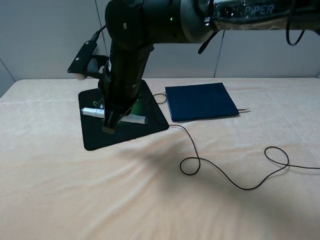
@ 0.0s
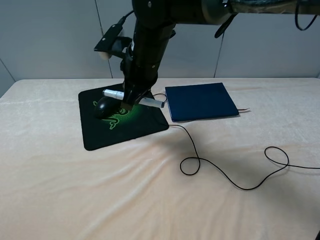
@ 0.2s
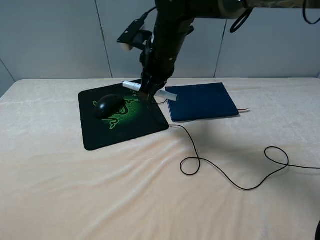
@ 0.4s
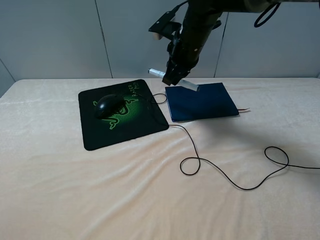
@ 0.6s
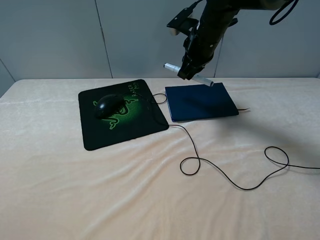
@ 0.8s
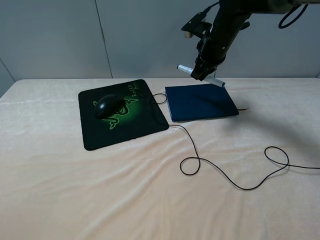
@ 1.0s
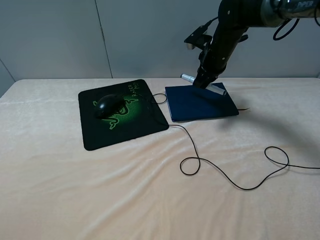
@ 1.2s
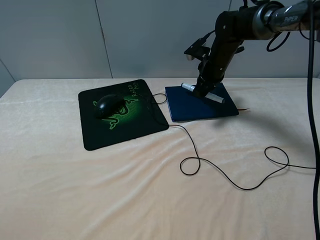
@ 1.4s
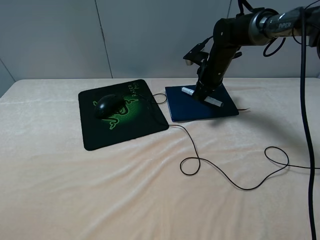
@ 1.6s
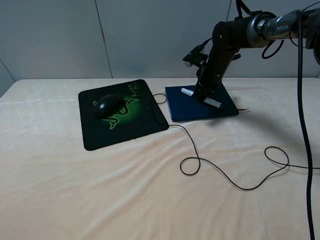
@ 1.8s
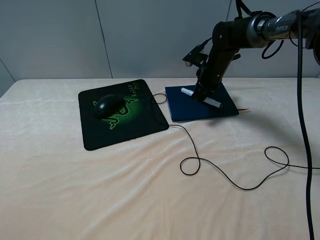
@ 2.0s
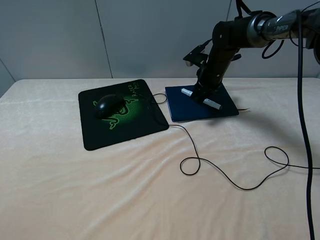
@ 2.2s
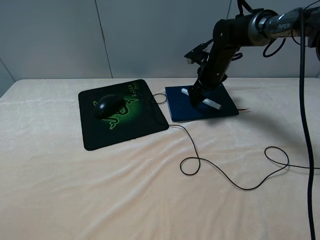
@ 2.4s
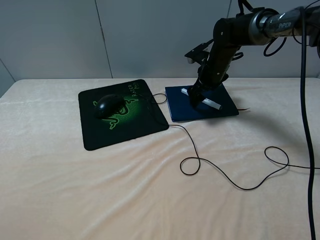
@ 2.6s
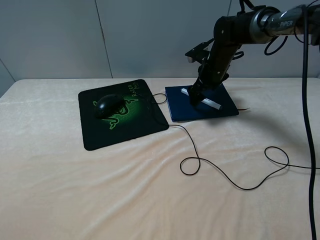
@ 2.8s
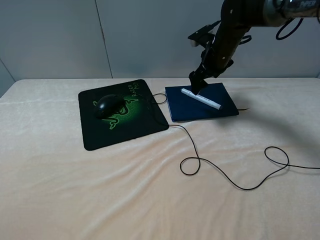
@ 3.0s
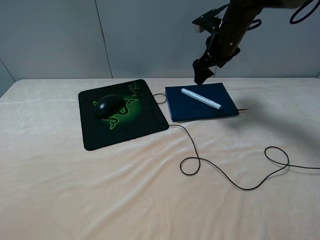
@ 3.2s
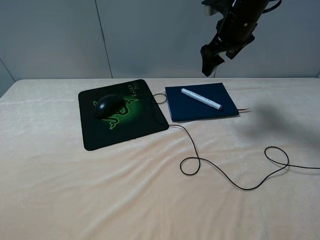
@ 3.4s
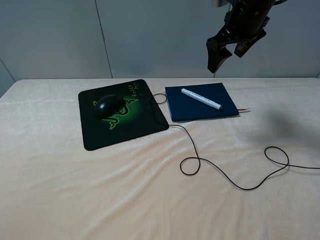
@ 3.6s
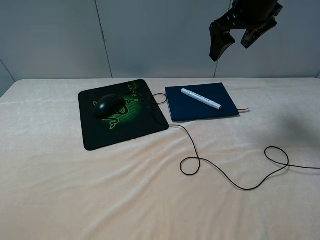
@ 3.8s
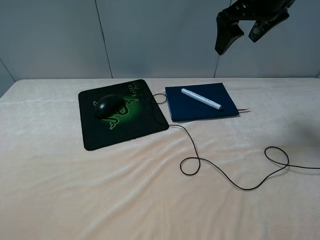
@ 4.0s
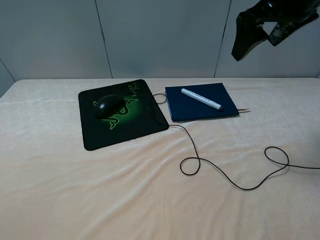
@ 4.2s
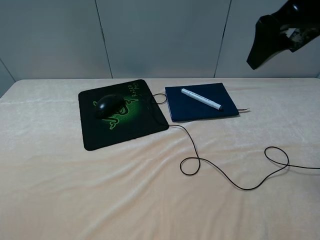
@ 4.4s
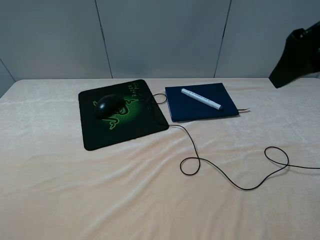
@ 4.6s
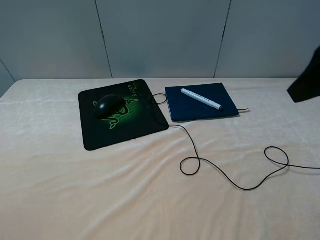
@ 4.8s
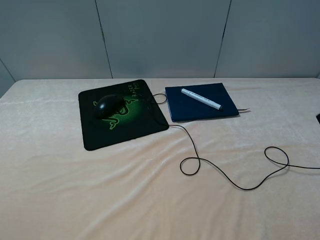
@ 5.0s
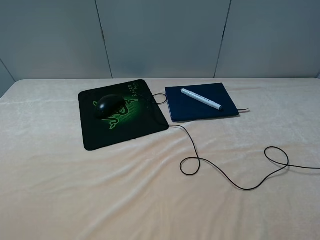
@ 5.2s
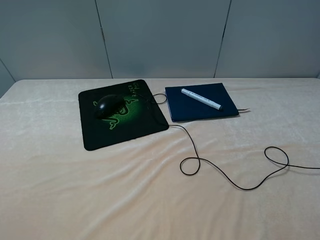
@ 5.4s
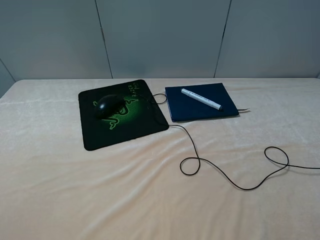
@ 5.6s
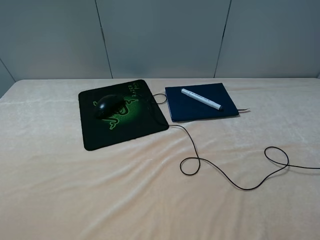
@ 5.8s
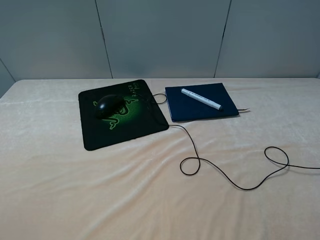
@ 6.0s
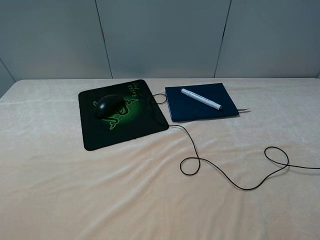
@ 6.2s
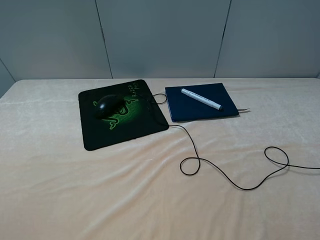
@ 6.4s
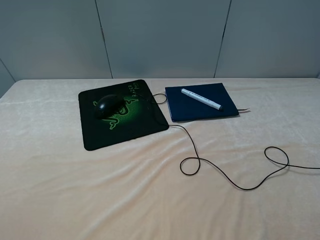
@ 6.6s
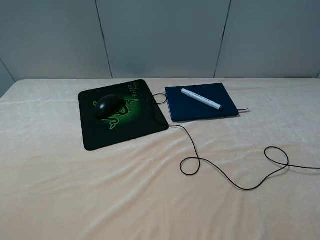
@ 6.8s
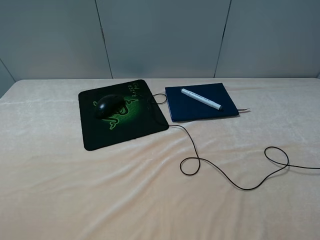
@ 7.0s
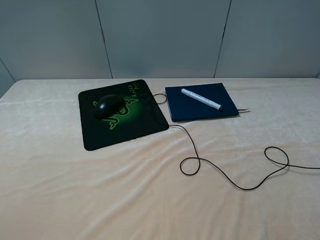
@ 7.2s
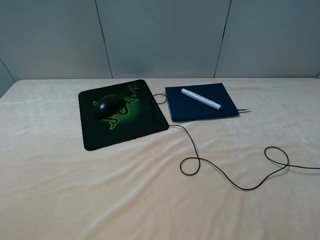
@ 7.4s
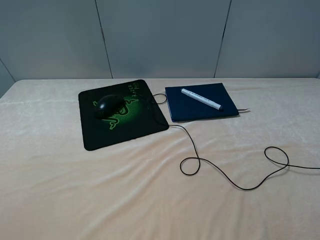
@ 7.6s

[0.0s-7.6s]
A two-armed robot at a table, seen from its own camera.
Step, 0.0s to 2.8s: Place the marker on the notebook with the right gripper.
0.0s to 1.6s: The right gripper moves to the right and forward, about 30 cm.
1.6s to 3.0s: The right gripper opens up.
3.0s to 4.6s: The right gripper heads backward and upward, covering approximately 30 cm.
4.6s to 6.0s: The right gripper heads backward, covering approximately 25 cm.

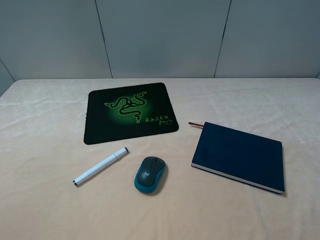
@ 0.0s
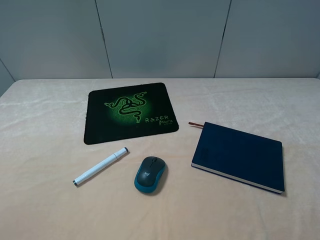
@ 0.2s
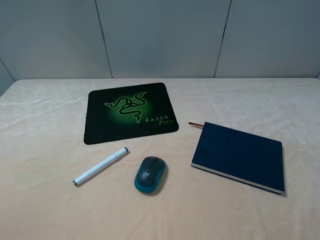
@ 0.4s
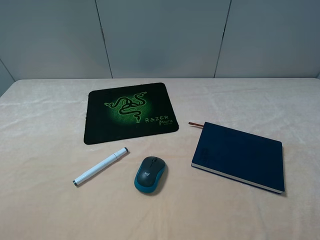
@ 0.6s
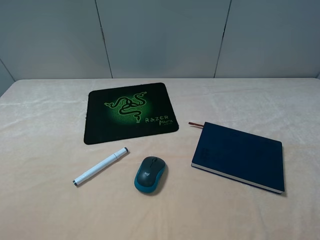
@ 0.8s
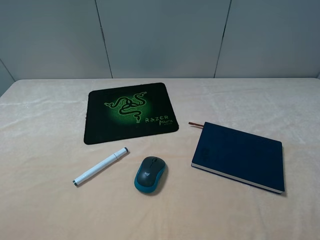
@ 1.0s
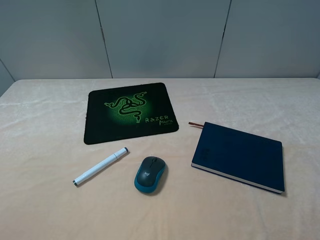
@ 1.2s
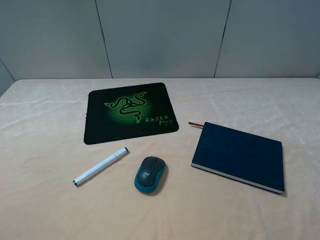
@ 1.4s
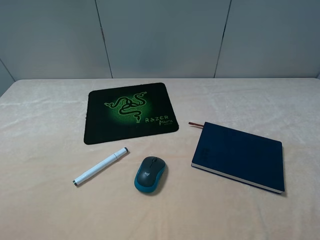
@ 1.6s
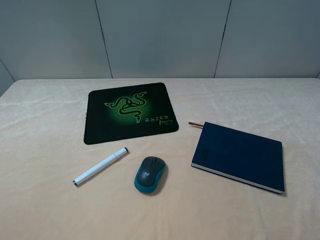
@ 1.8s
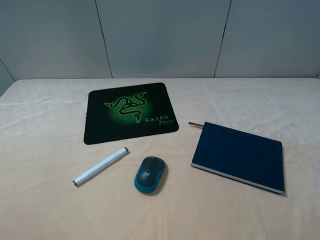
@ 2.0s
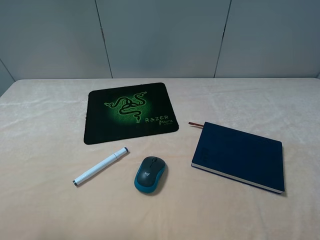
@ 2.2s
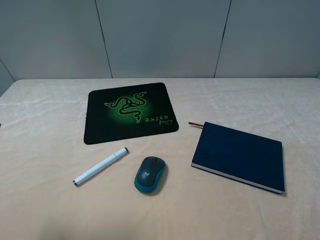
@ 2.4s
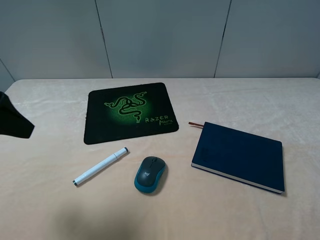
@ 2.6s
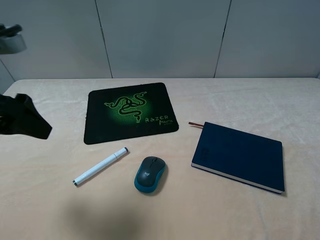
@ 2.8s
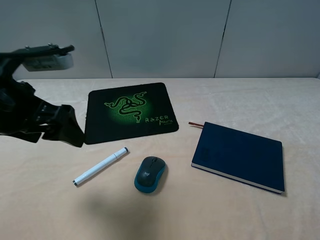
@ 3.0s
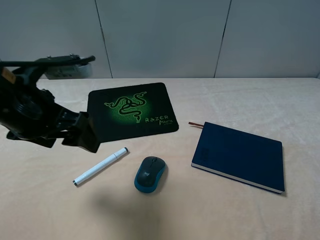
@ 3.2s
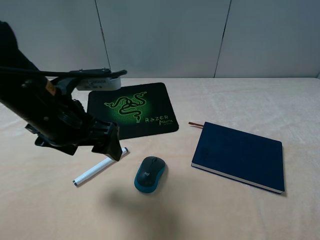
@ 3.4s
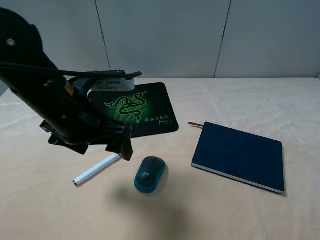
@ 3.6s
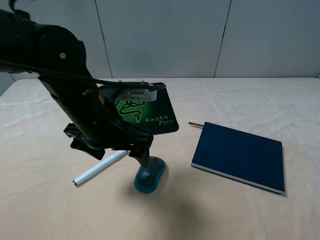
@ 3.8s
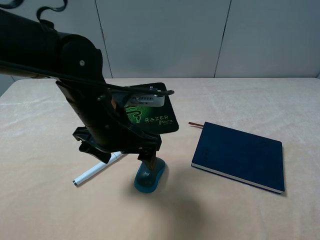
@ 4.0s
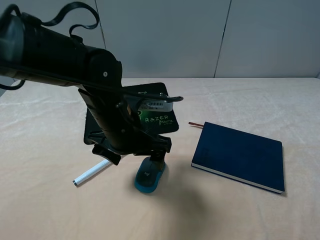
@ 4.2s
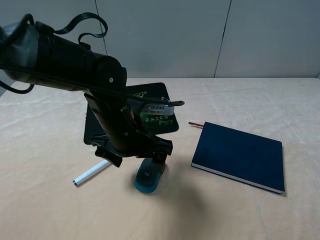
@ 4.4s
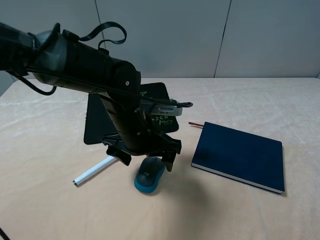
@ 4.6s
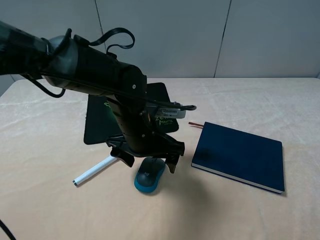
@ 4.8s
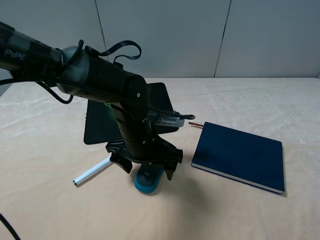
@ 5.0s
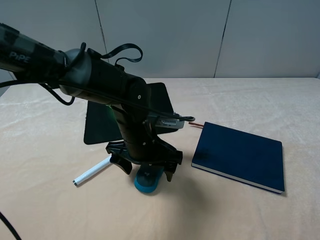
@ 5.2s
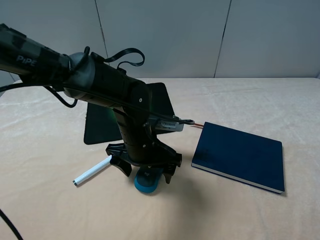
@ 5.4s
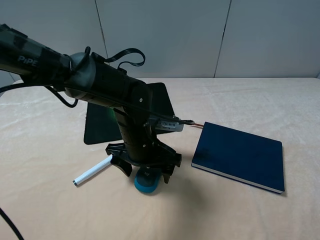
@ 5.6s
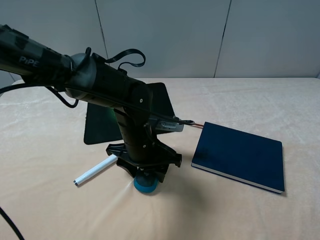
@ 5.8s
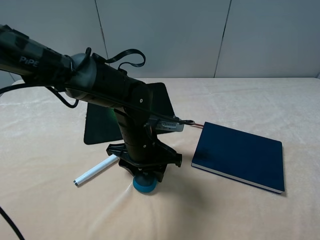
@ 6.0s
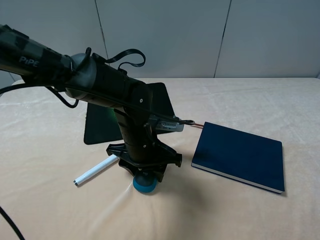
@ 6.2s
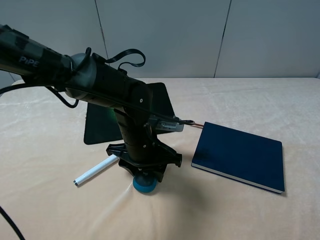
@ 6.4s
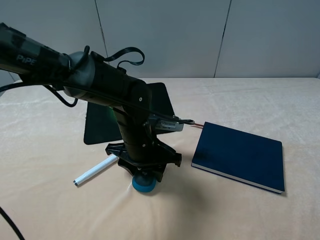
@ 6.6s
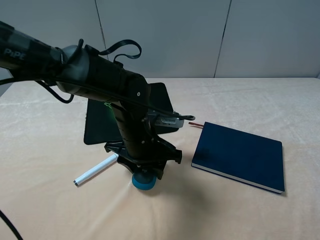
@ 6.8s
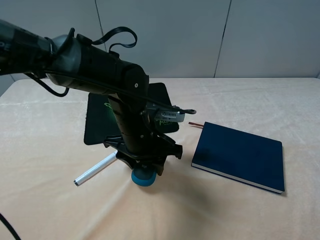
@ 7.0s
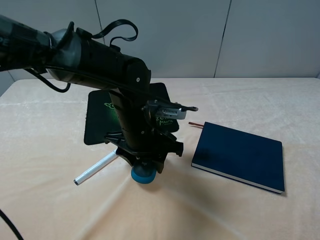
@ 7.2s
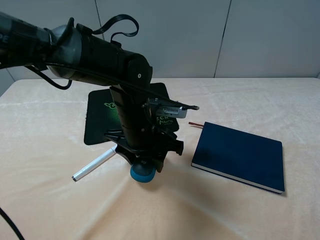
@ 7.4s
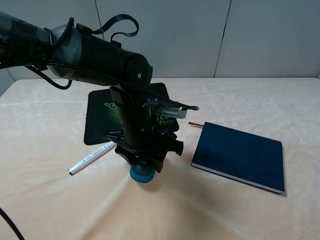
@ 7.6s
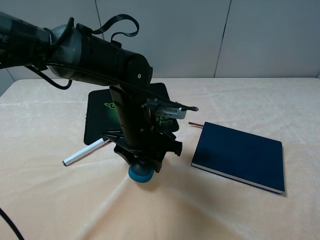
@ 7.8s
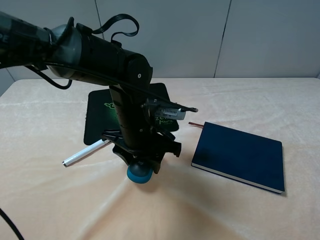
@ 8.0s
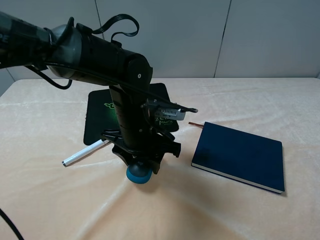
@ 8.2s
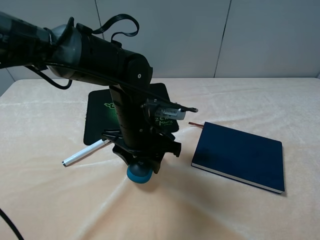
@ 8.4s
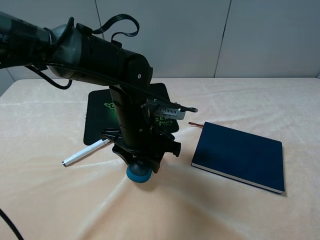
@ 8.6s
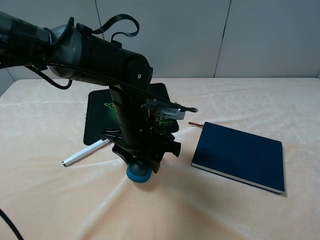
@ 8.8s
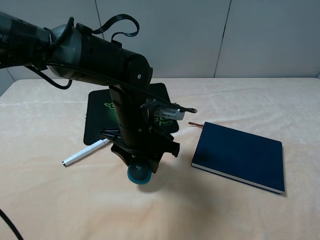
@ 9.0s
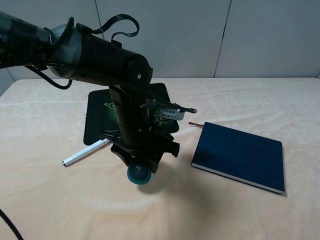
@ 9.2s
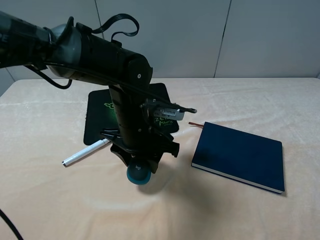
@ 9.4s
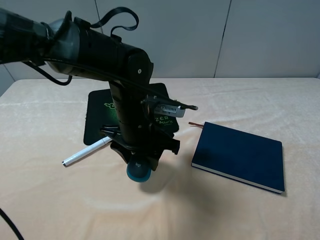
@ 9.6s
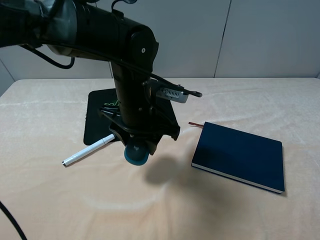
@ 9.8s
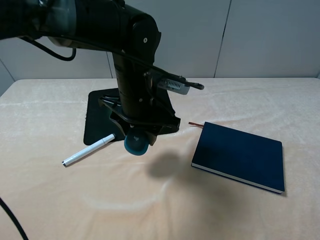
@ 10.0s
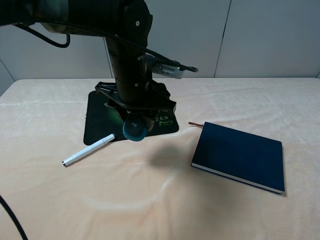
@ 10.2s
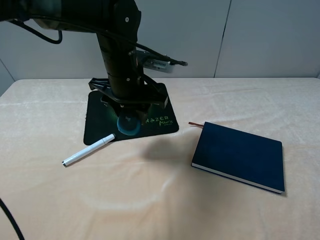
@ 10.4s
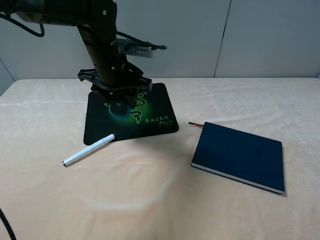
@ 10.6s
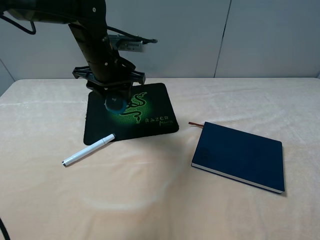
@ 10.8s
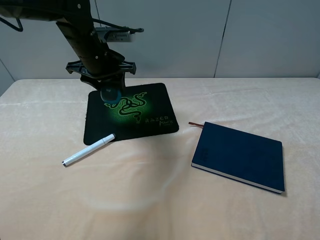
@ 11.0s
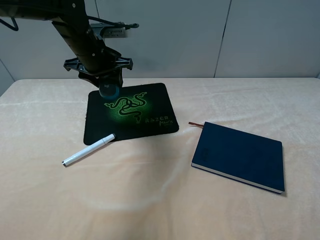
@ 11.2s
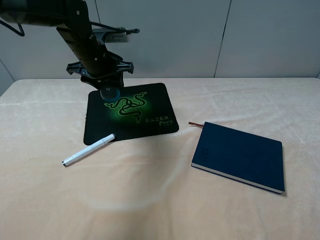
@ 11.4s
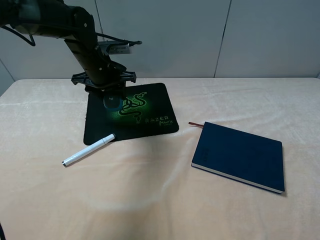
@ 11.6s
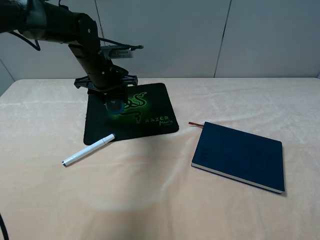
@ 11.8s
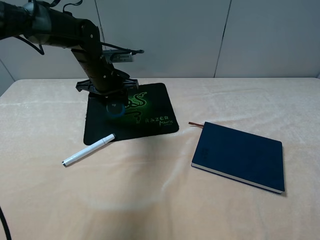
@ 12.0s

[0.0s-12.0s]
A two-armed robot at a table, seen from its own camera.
Step, 0.0s to 6.0s: Grasp the mouse with the left gripper.
1.6s to 3.0s: The left gripper moves forward and to the right, approximately 20 cm.
3.0s to 4.4s: The left gripper travels to the right and downward by approximately 20 cm.
4.4s to 6.0s: The left gripper shifts by about 5 cm, and closes up.
6.0s to 7.6s: The grippers move only a little.
7.6s to 9.0s: The two grippers keep their place.
9.0s to 10.4s: The left gripper moves forward and upward, roughly 10 cm.
10.4s to 12.0s: The left gripper goes some 15 cm forward, to the left and downward.

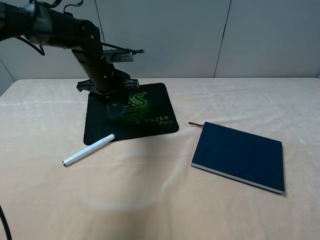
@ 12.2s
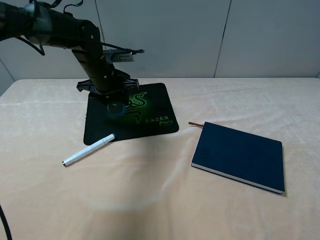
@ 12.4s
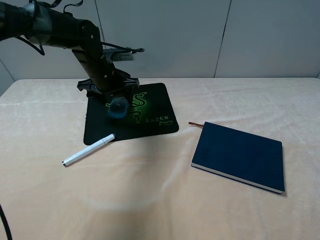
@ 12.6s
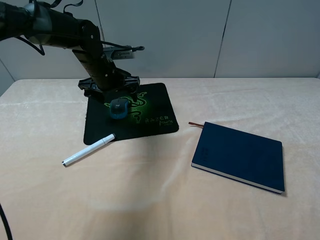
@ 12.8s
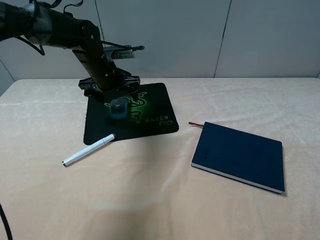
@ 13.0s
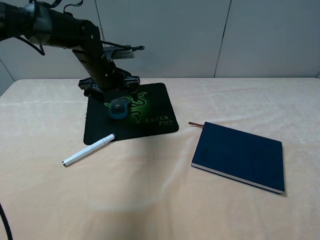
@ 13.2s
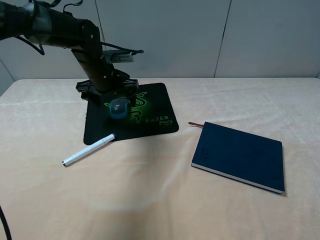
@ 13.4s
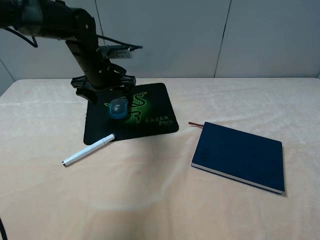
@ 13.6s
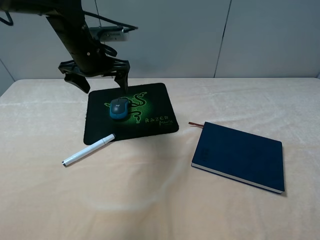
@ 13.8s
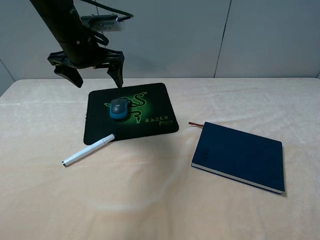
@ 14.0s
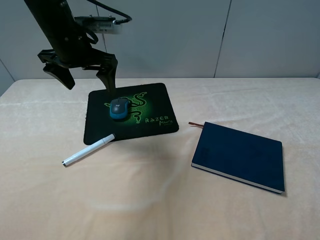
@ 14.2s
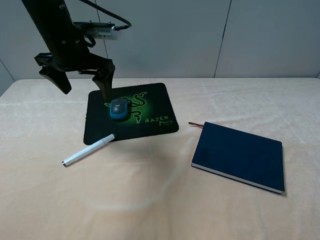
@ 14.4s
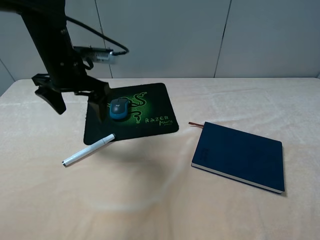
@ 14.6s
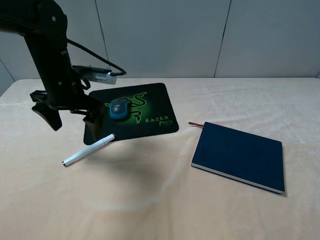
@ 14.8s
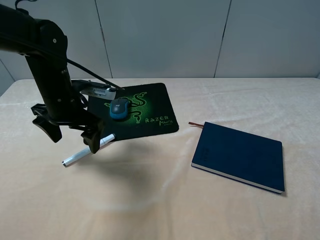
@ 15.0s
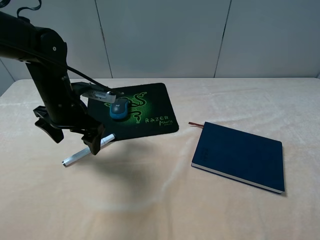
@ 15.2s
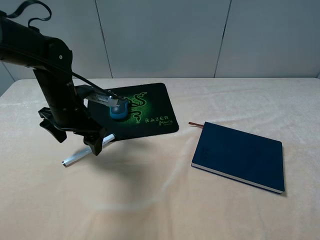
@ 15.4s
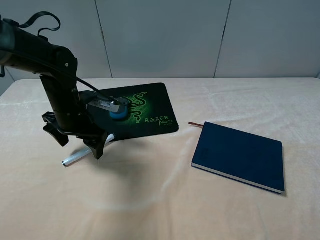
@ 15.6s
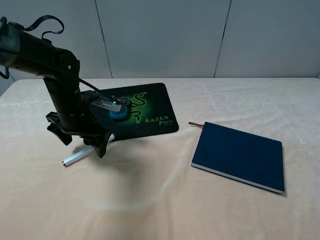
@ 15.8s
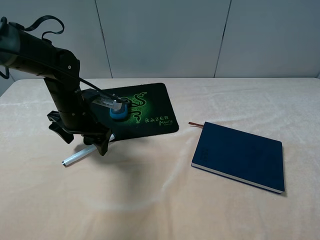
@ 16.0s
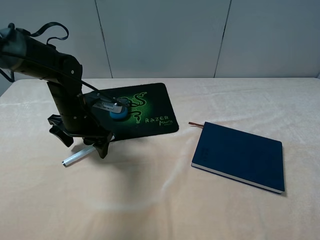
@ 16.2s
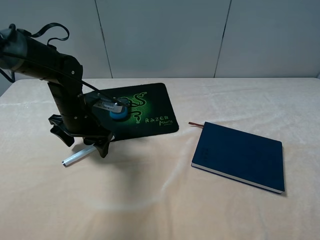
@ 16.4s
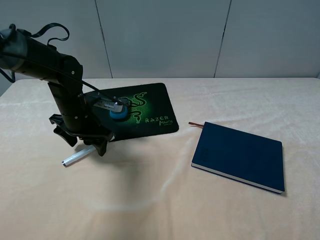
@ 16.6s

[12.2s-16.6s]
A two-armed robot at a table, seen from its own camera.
12.2s to 13.6s: The left gripper opens.
13.6s to 15.2s: The left gripper moves backward, some 10 cm, and moves some 10 cm upward and comes back.
15.2s to 16.6s: The left gripper moves approximately 5 cm.
